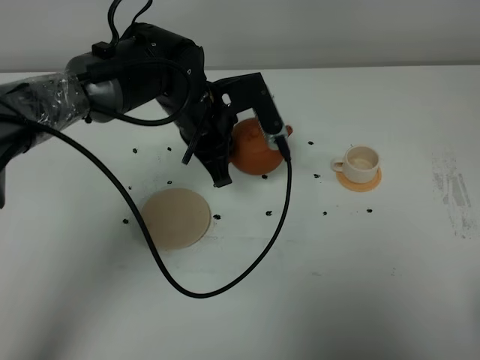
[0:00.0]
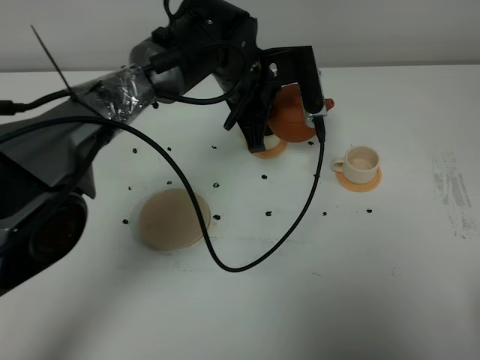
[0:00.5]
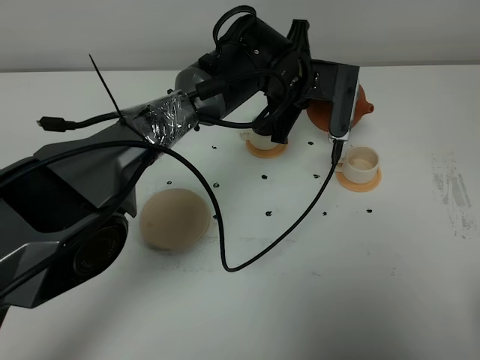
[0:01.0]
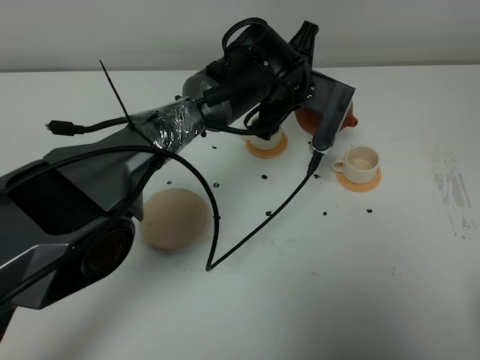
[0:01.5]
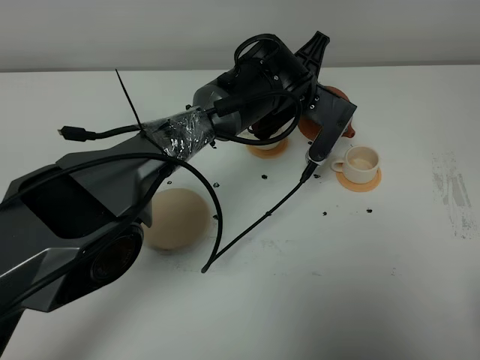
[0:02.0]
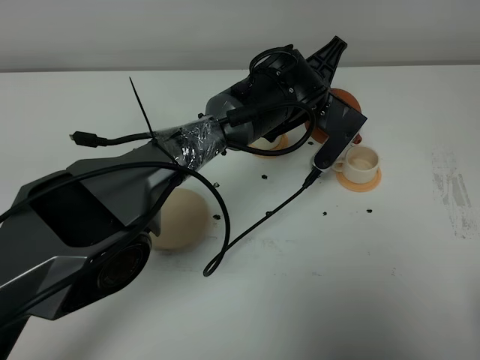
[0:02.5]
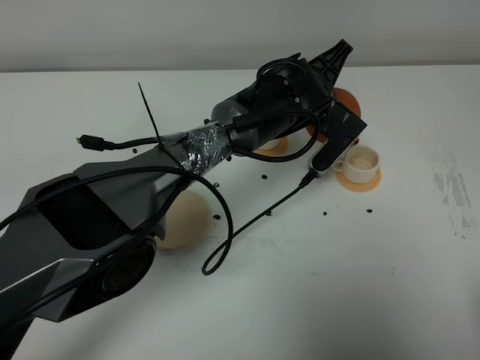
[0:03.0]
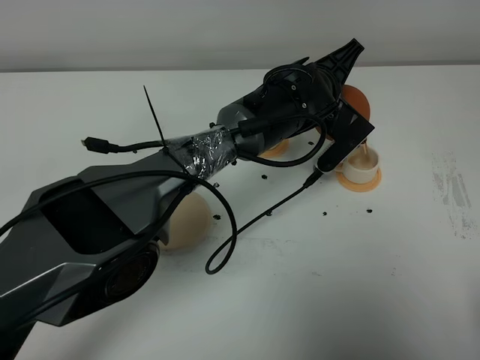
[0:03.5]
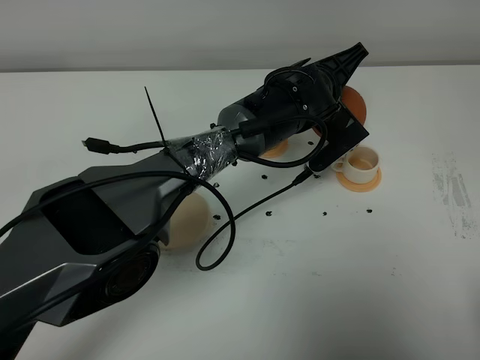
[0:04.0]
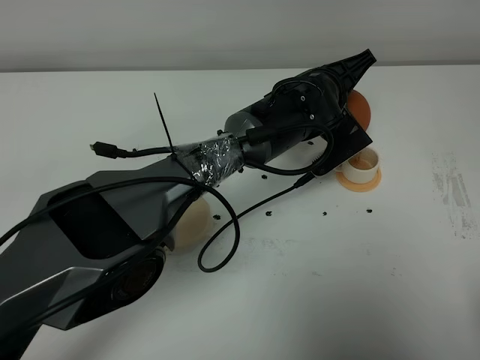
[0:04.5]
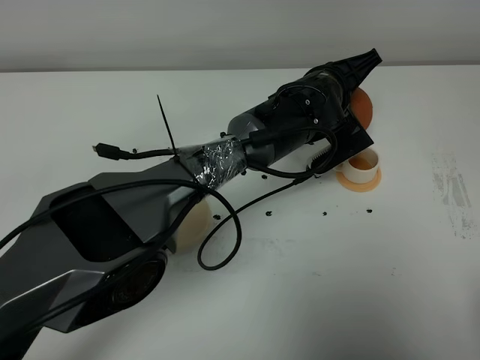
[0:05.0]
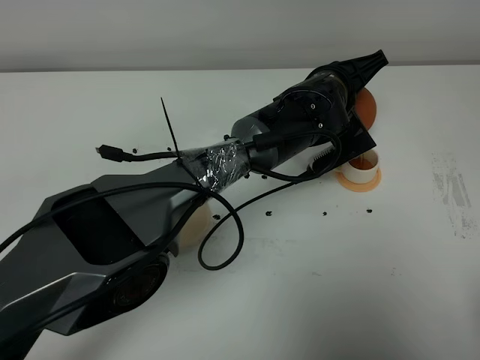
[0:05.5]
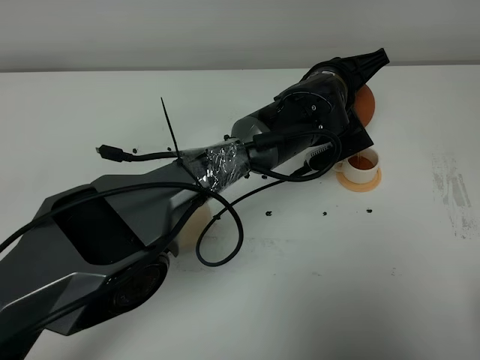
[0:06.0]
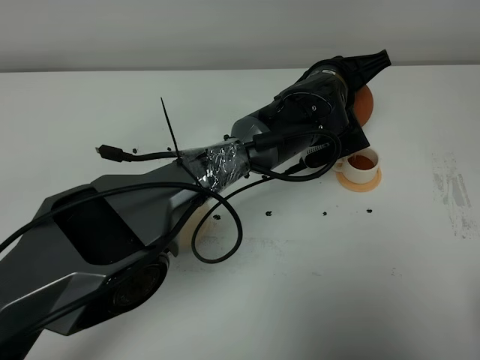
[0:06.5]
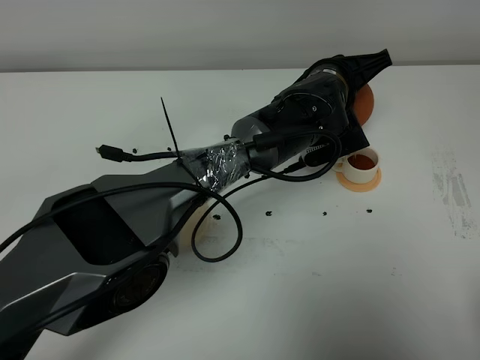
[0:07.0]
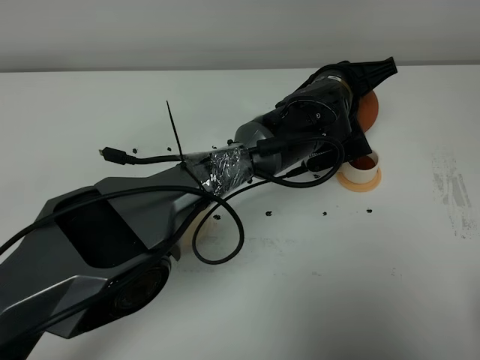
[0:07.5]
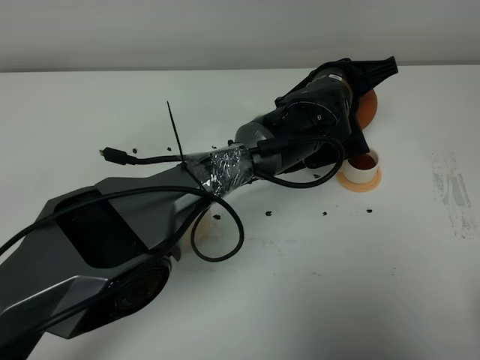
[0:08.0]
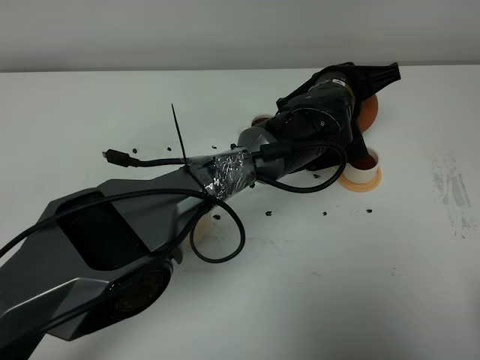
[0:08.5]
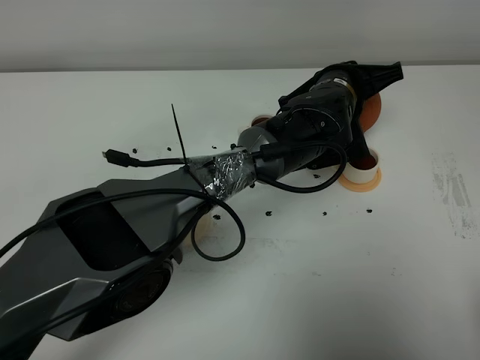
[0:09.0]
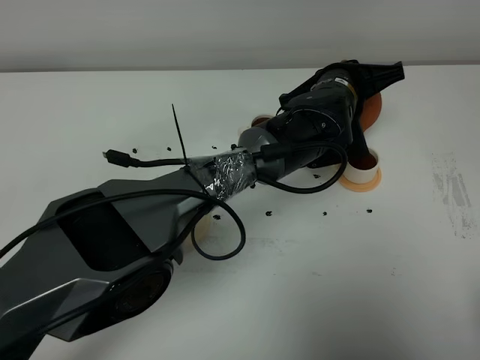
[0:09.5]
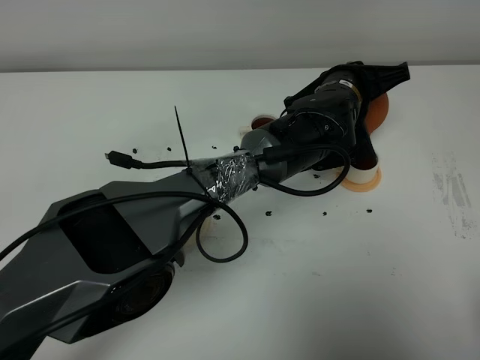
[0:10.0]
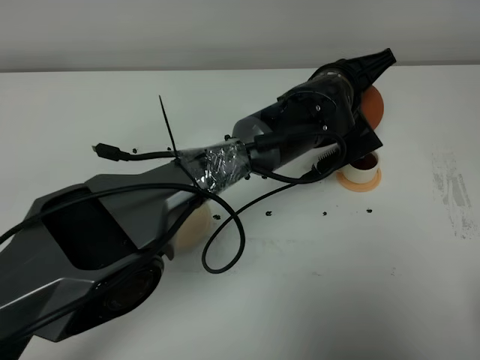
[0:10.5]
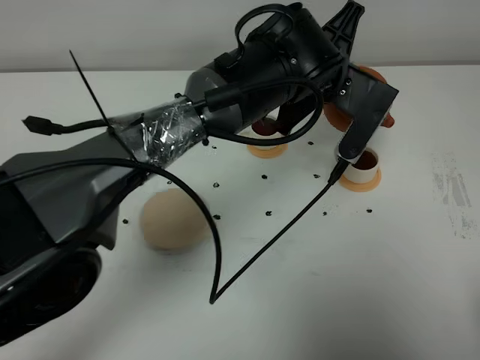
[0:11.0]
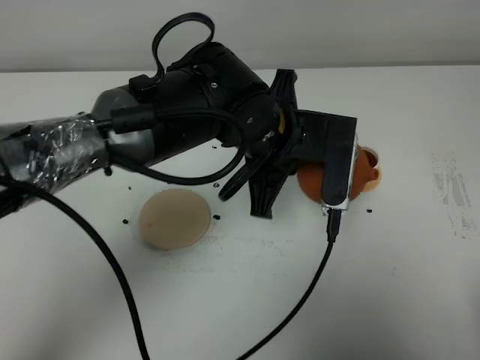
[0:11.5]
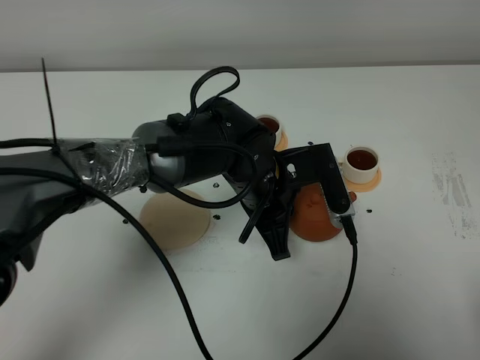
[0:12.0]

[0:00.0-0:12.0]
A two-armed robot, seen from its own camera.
Task of the whole recording: grasp the brown teapot and pour the tea into the two white teacups one by one, put the brown teapot back in its original place.
Step, 0:00.0 to 0:10.5: Pour tea into the teacup with the left gripper.
0:00.0 to 0:02.0: The left gripper shifts some 10 cm to the right.
0:04.0 to 0:06.0: The grippers make only small movements.
0:06.0 to 0:10.0: The grippers stay close to where they were, moving slightly.
0:10.0 to 0:12.0: The left gripper shifts roughly 15 cm to the left and backward.

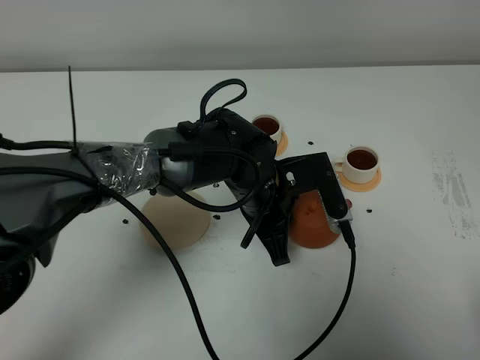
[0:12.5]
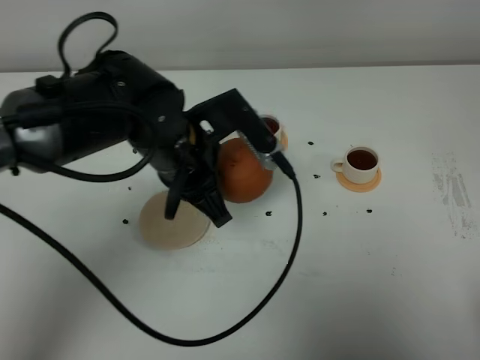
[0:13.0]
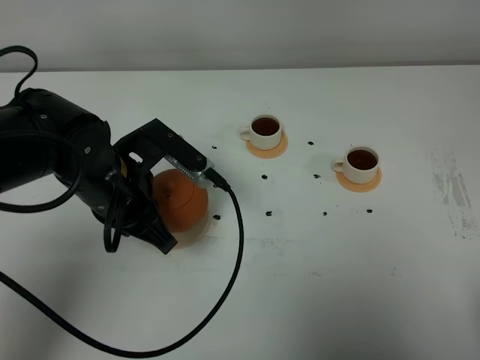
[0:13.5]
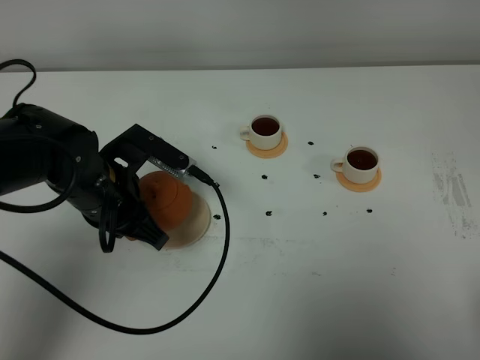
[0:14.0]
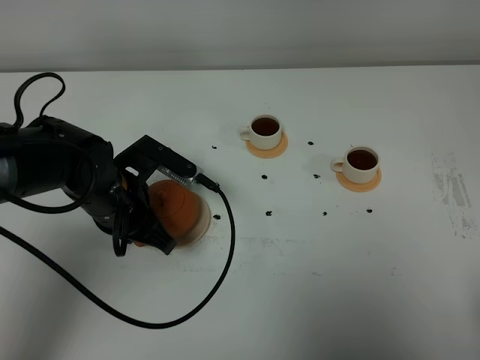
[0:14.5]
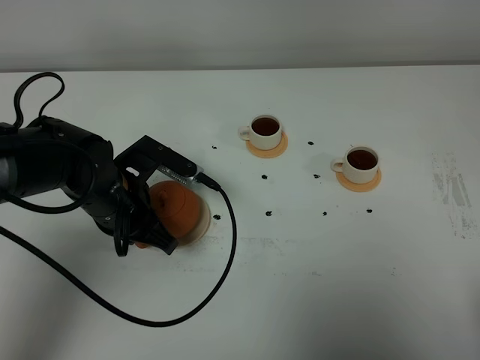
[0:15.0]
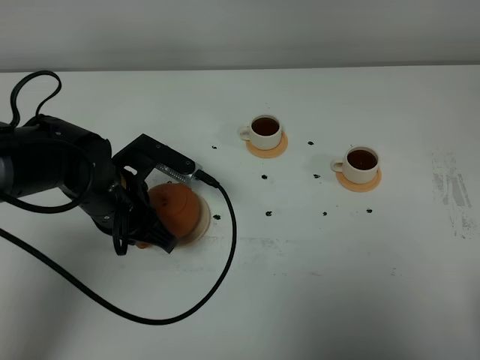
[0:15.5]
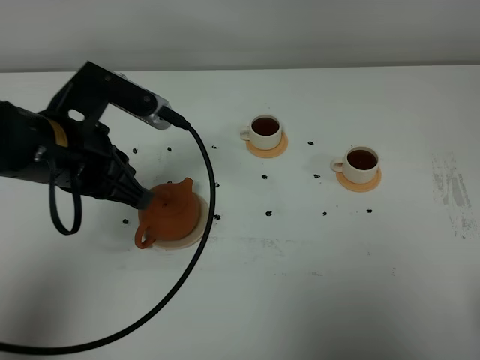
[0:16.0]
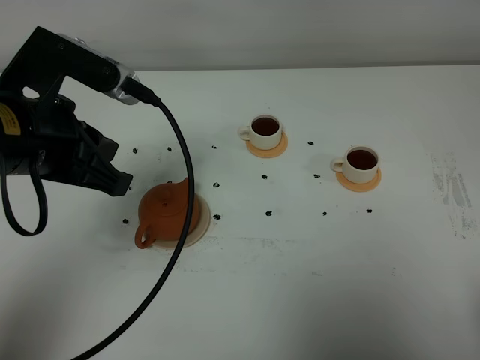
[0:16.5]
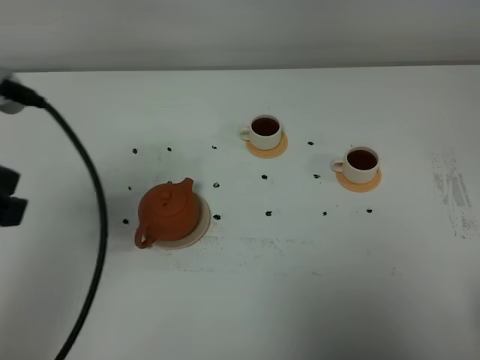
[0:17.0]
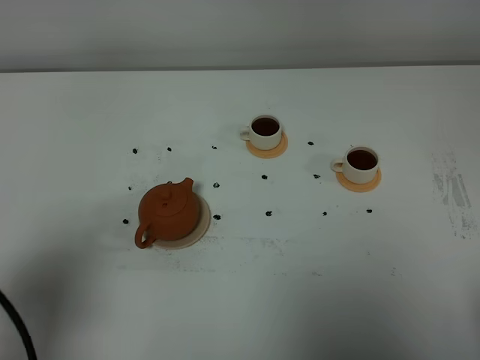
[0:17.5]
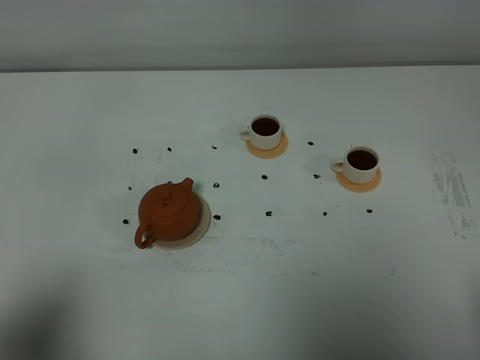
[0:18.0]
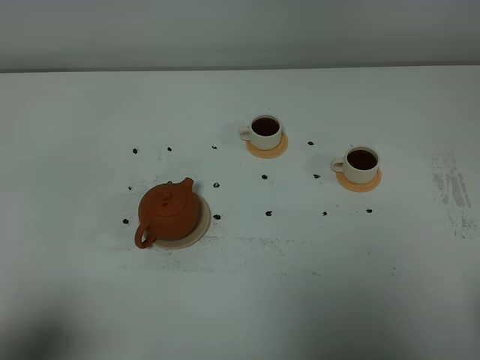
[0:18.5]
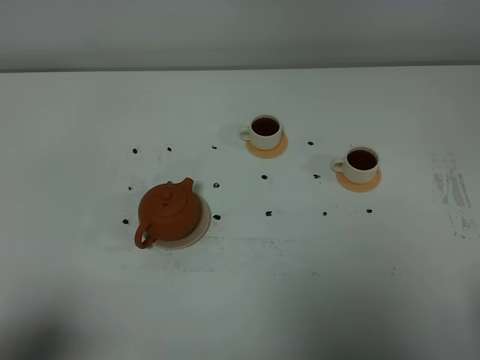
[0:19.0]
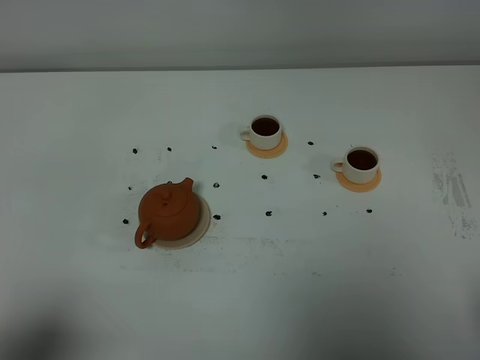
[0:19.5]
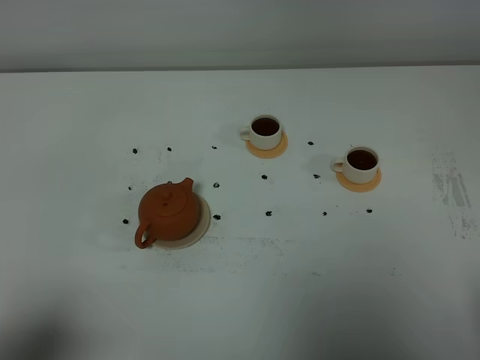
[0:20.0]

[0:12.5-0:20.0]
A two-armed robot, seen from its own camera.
Task of the whole recording: grasp the brown teapot and pour the tea into the two white teacups one by one, put the brown teapot back in its original place.
0:12.5 to 0:14.5: The left gripper shifts approximately 15 cm to the left.
0:14.5 to 0:16.5: The left gripper goes about 15 cm upward.
0:16.5 to 0:18.0: The left gripper heads backward and to the left, covering roughly 25 cm.

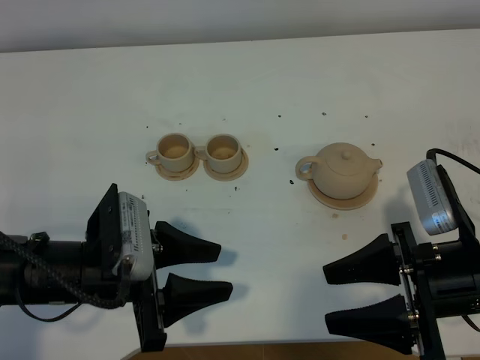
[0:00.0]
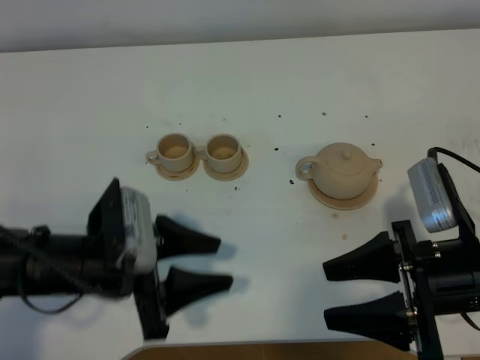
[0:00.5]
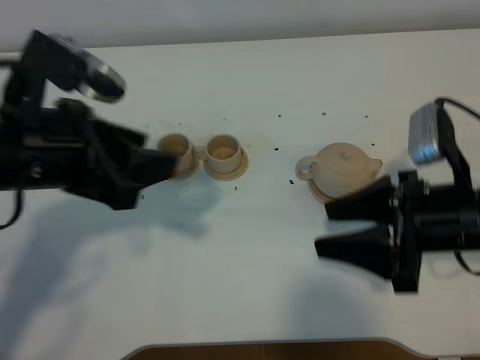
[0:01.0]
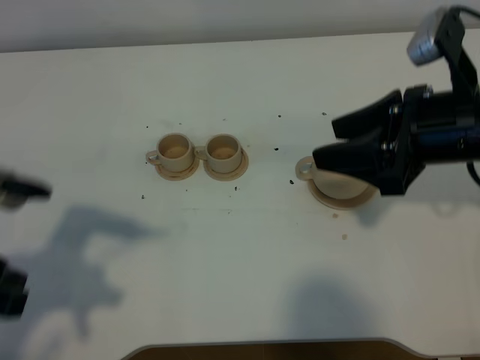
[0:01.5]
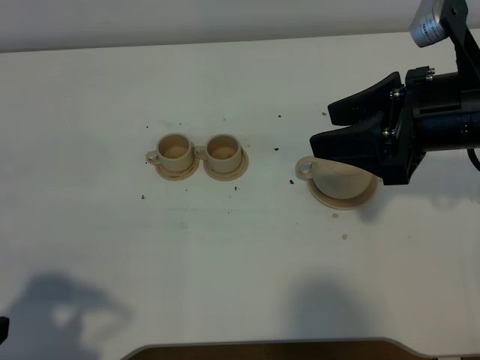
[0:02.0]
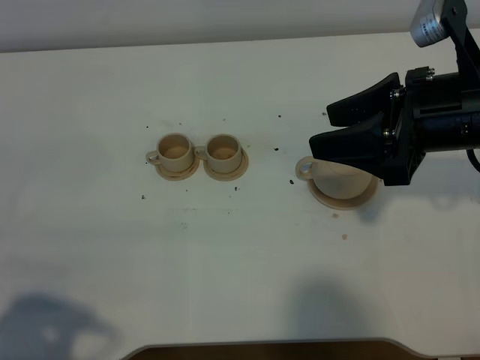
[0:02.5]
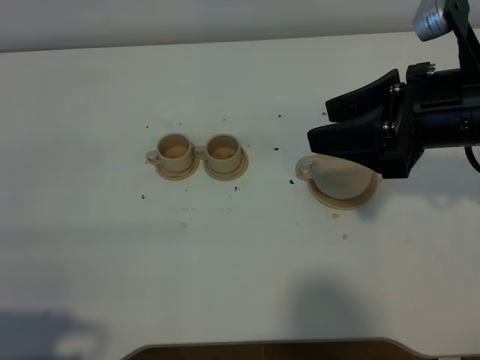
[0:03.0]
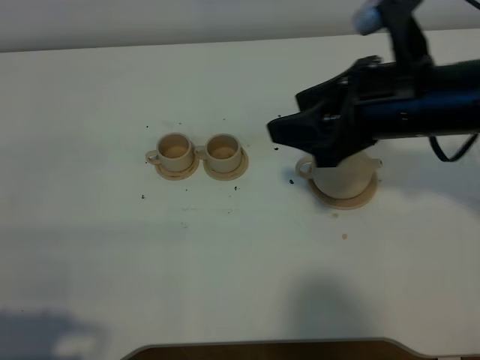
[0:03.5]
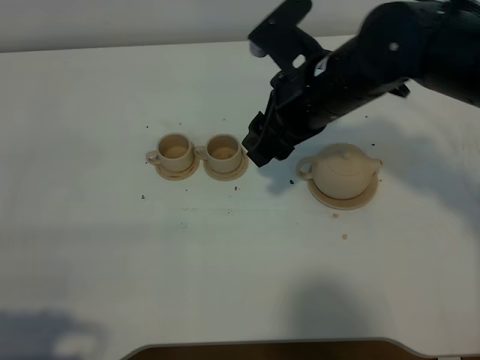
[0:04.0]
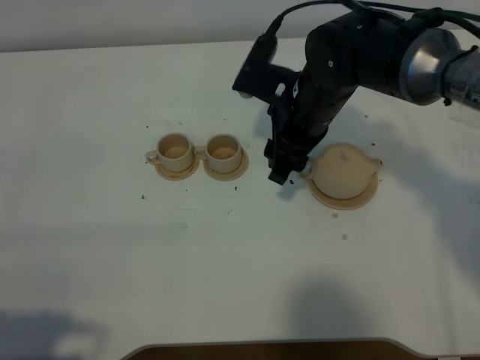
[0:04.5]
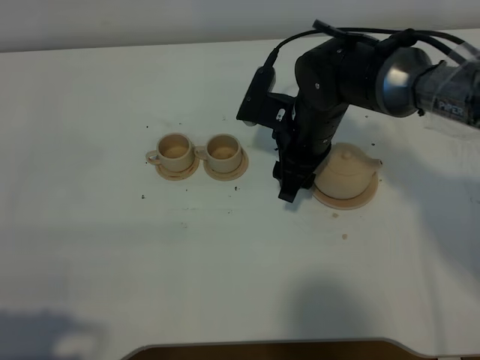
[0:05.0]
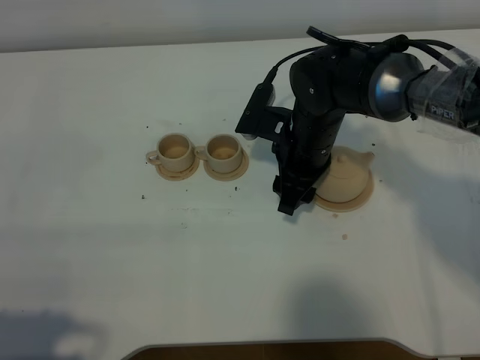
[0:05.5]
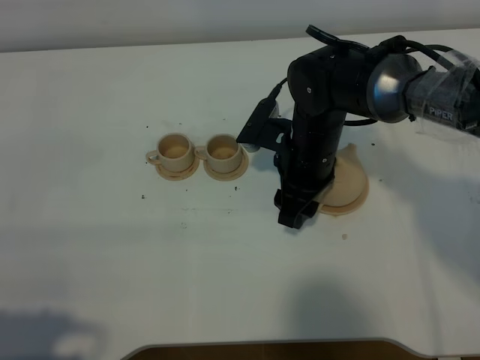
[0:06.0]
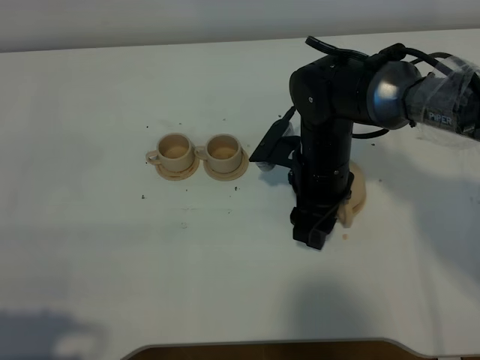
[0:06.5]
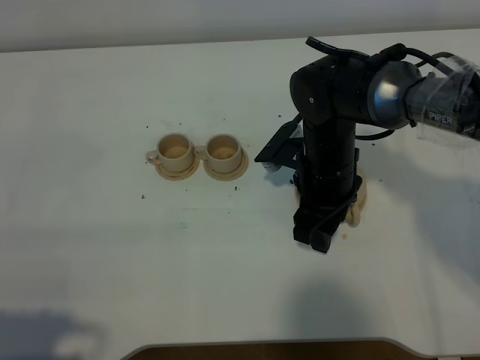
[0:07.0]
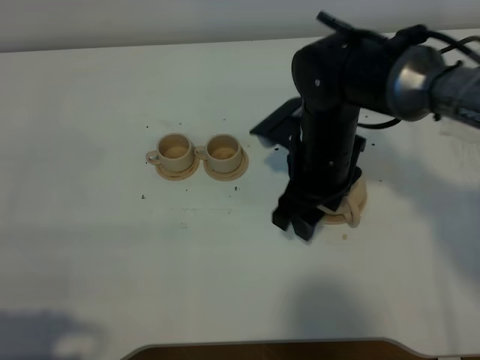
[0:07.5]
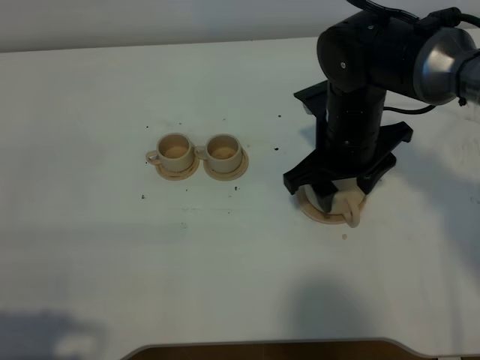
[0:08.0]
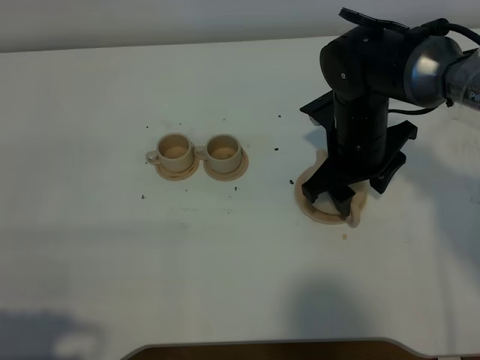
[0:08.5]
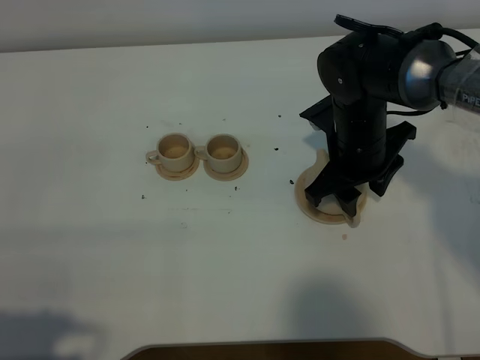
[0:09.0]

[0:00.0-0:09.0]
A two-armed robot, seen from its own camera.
Task of the whole recording: grasp the brown teapot and pour the tea into the two brown teacups one by one, put the brown teapot back in its original place.
0:00.0 to 0:02.0: The right gripper shifts roughly 15 cm forward and upward, while the left gripper moves backward, to the left and upward, roughly 20 cm.
0:02.0 to 0:04.5: The right gripper goes about 20 cm to the left, forward and downward.
0:04.5 to 0:07.0: The right gripper is displaced downward by approximately 5 cm.
